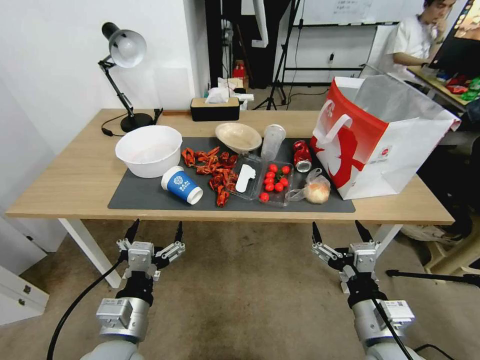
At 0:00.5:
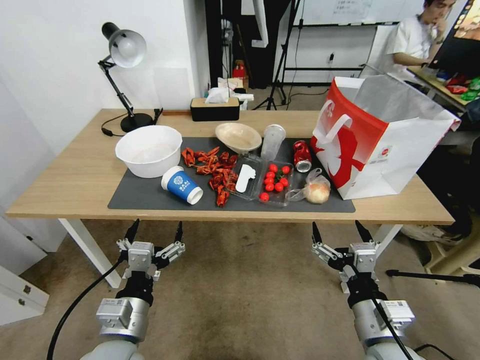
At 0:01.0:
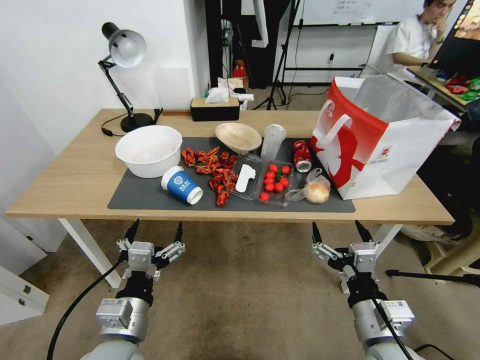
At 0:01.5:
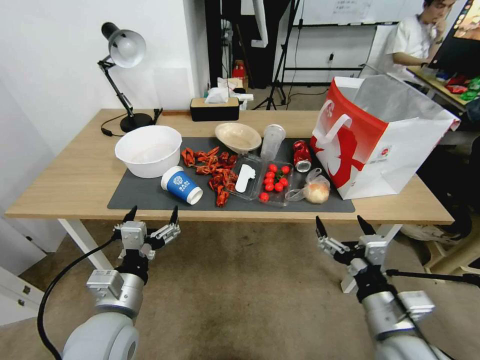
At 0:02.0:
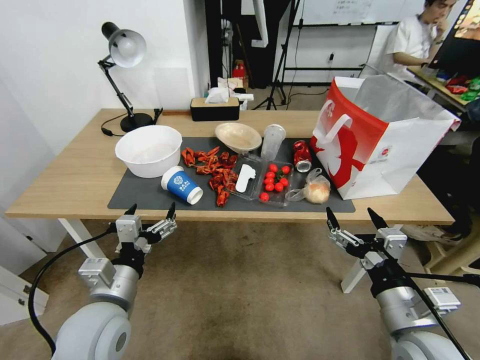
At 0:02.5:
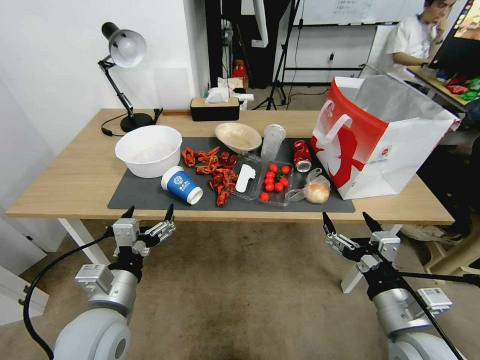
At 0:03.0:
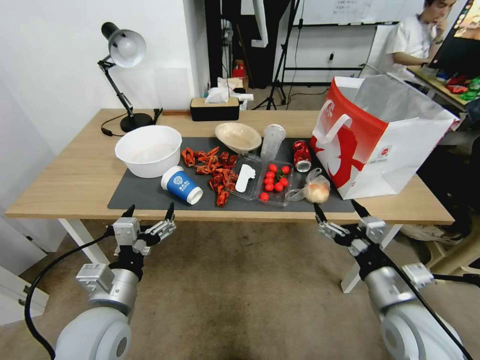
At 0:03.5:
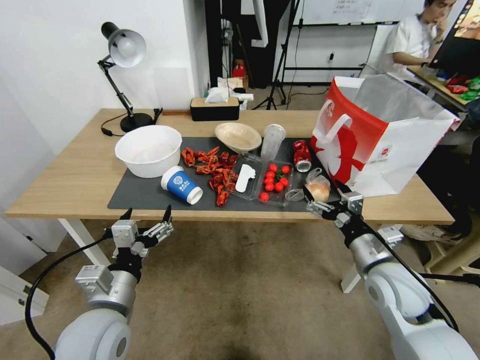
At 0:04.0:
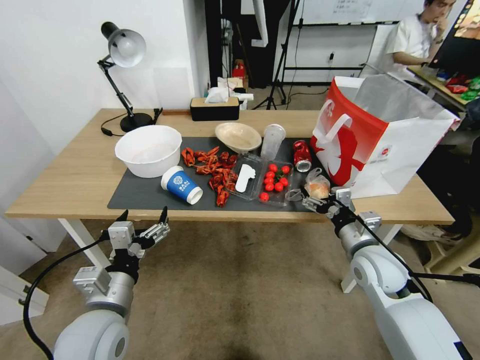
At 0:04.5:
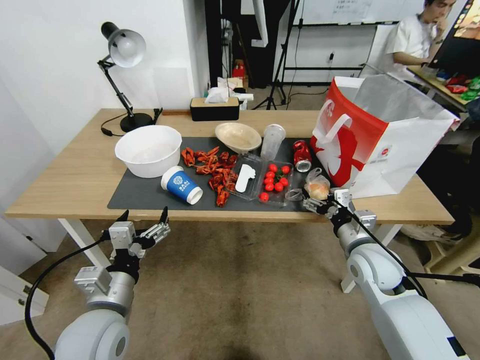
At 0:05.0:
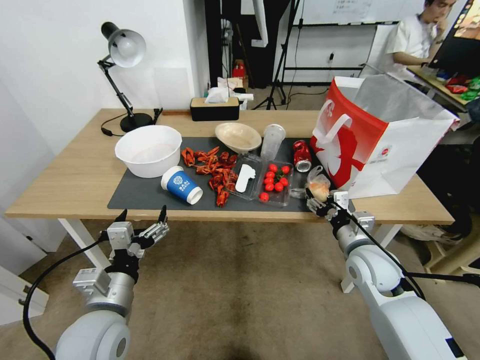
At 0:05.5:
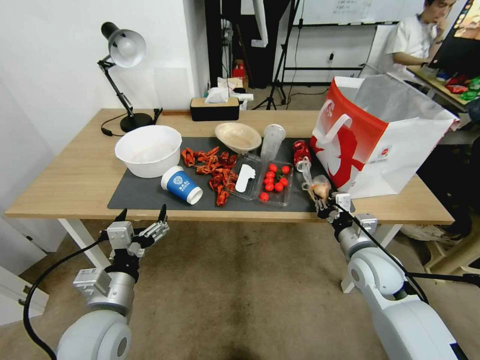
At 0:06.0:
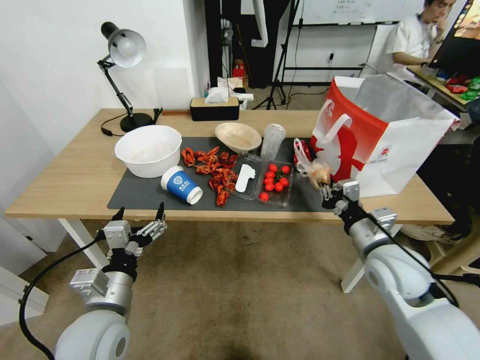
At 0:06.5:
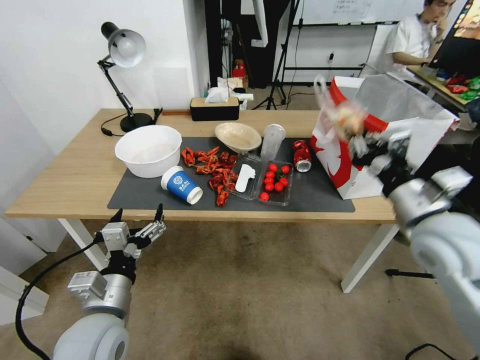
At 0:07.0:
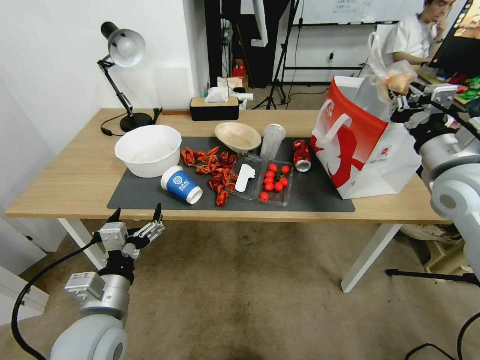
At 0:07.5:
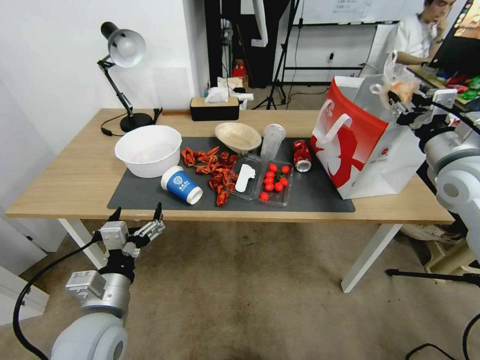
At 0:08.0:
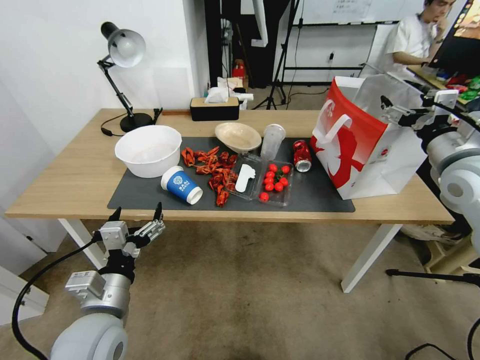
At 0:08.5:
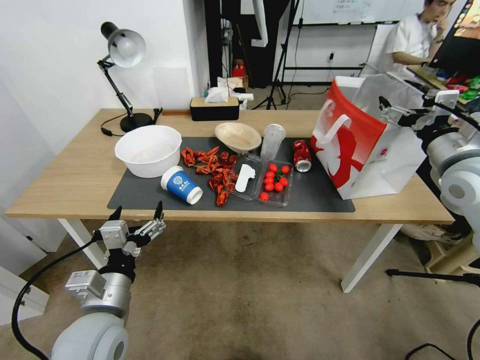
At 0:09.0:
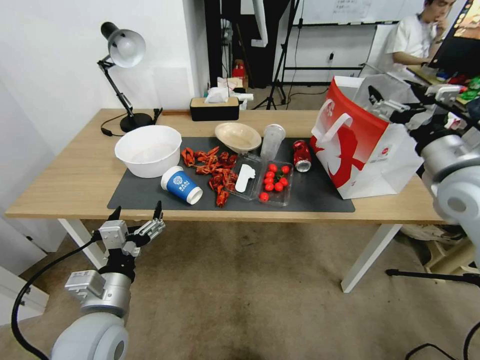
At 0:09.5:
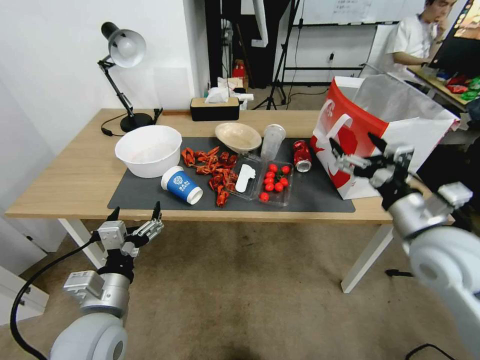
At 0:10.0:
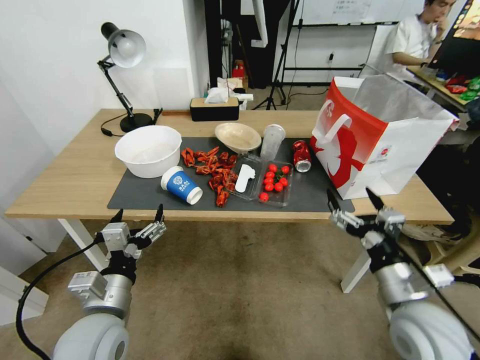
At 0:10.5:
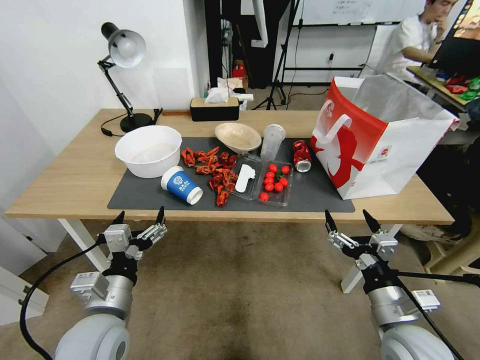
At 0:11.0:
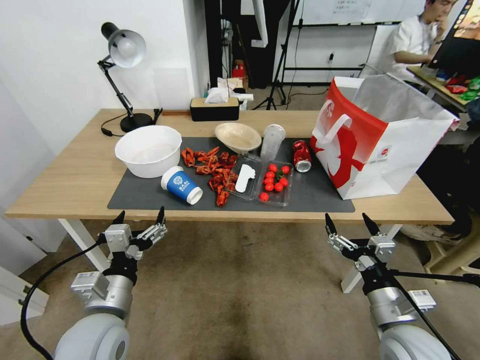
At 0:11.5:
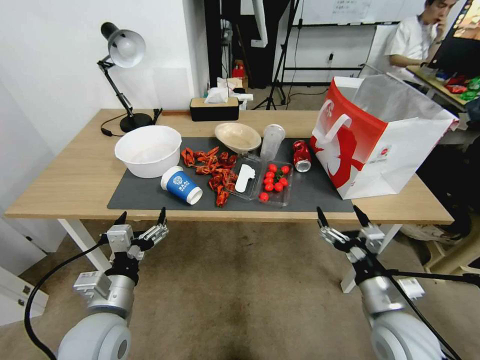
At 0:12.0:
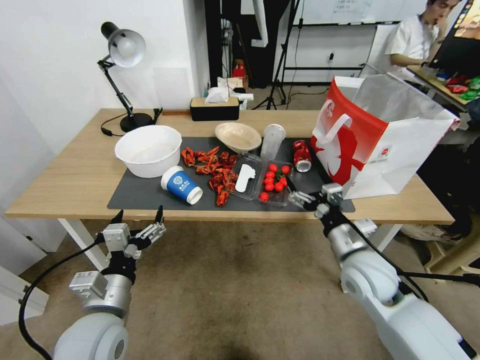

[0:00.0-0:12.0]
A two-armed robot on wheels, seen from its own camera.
0:02.0 to 0:04.0: The right gripper goes approximately 15 cm forward.
0:04.0 to 0:06.0: The right gripper closes its fingers.
0:06.0 to 0:08.0: The right gripper goes approximately 20 cm upward, to the right and forward, and opens.
0:08.0 to 0:10.0: The right gripper is displaced backward, downward and to the left by about 25 cm.
0:10.0 to 0:12.0: The right gripper moves forward, roughly 10 cm.

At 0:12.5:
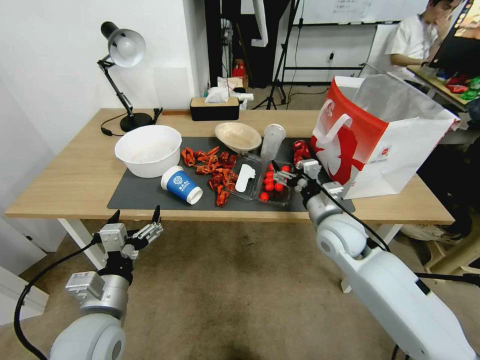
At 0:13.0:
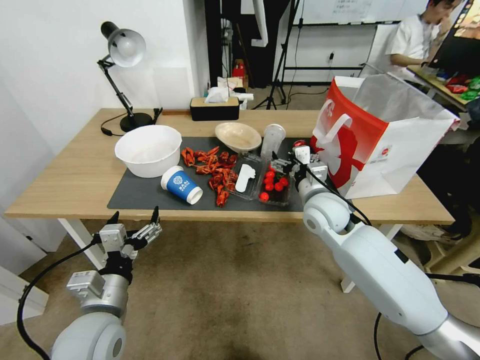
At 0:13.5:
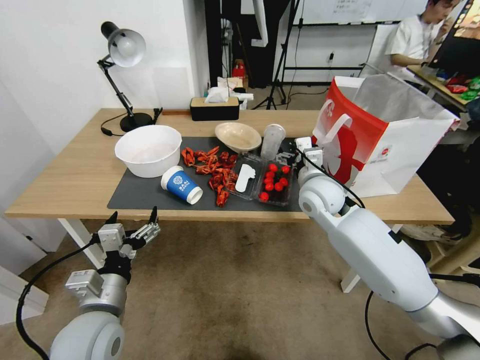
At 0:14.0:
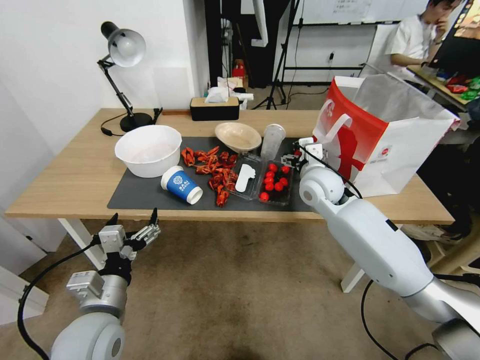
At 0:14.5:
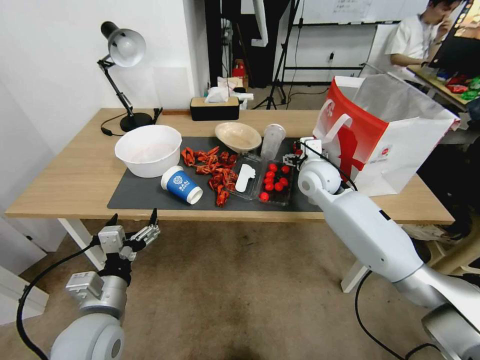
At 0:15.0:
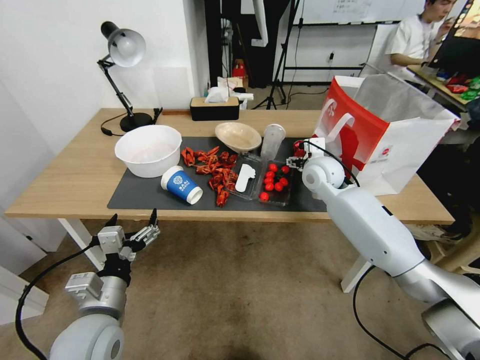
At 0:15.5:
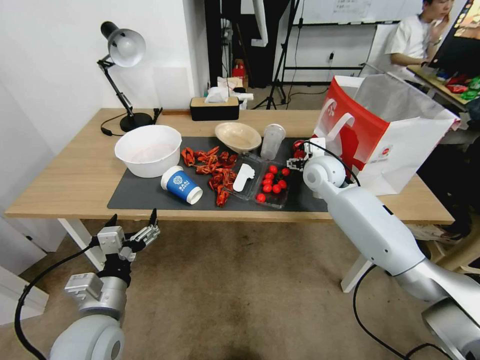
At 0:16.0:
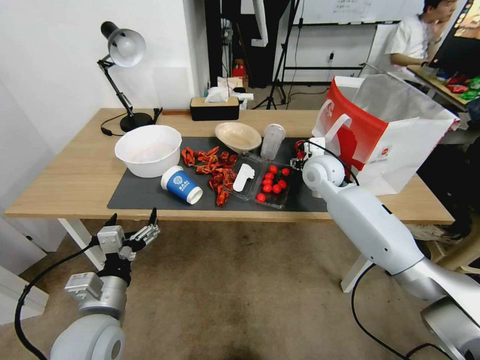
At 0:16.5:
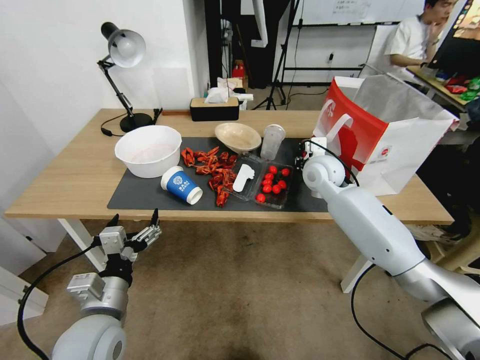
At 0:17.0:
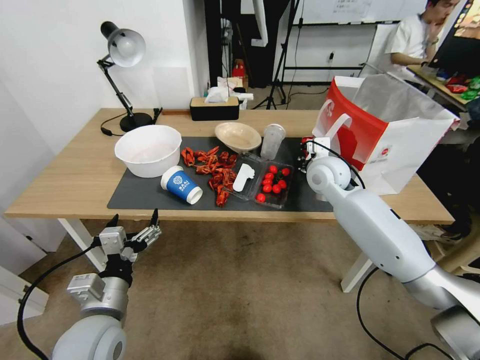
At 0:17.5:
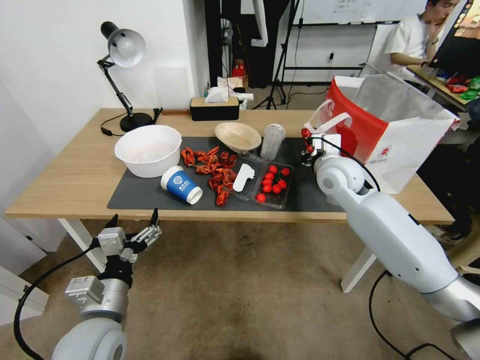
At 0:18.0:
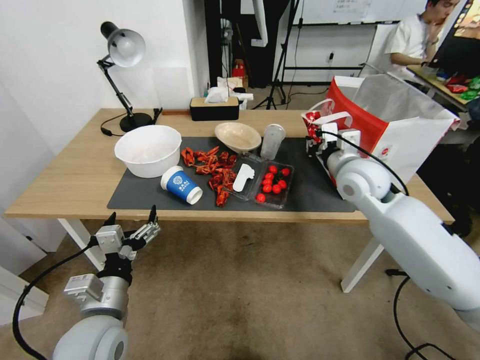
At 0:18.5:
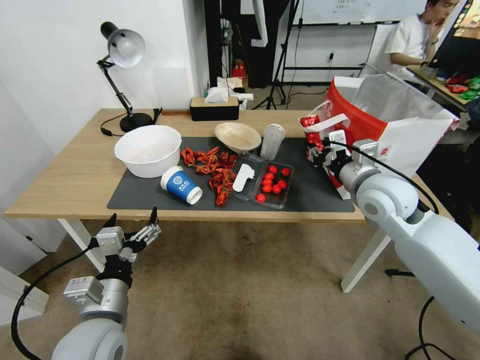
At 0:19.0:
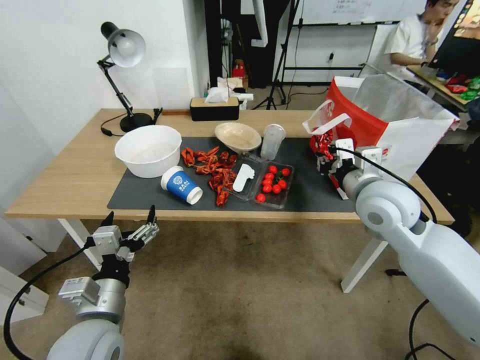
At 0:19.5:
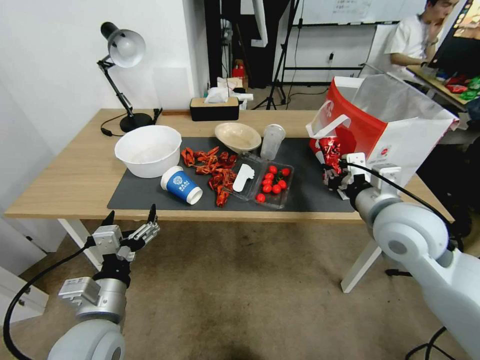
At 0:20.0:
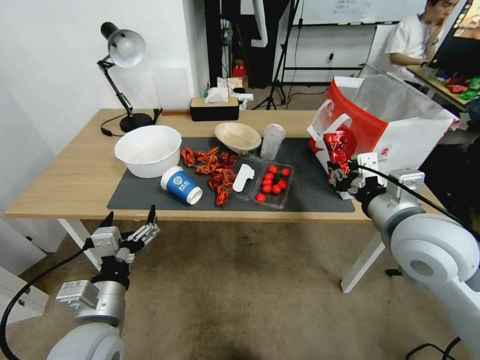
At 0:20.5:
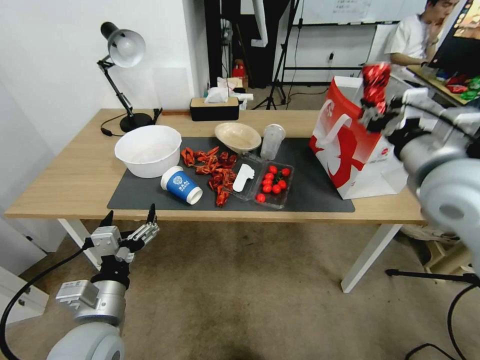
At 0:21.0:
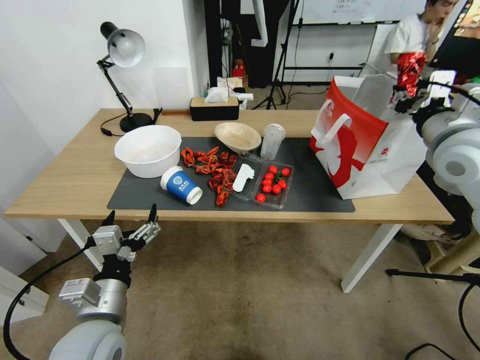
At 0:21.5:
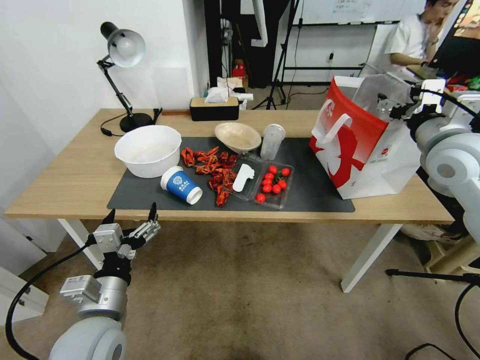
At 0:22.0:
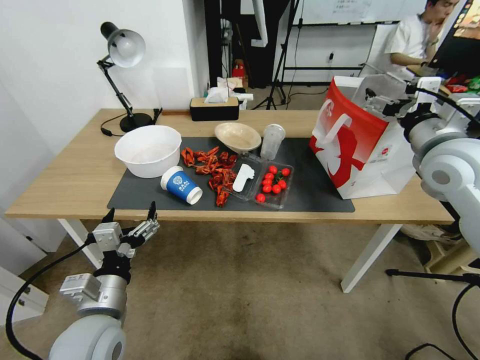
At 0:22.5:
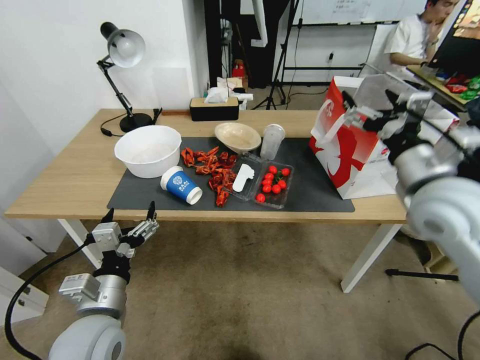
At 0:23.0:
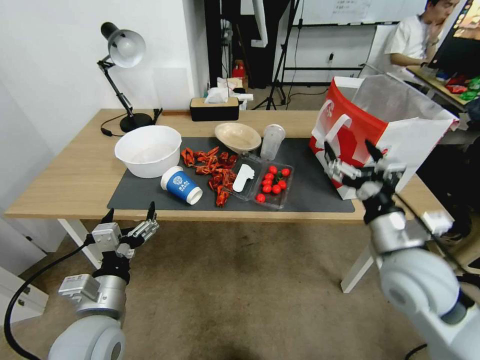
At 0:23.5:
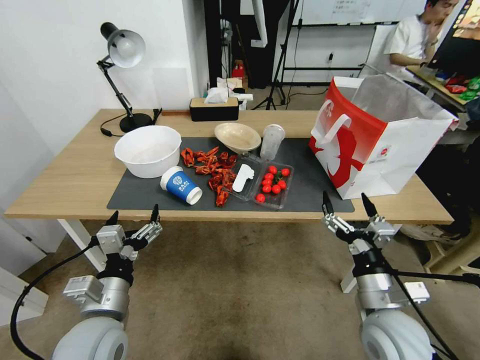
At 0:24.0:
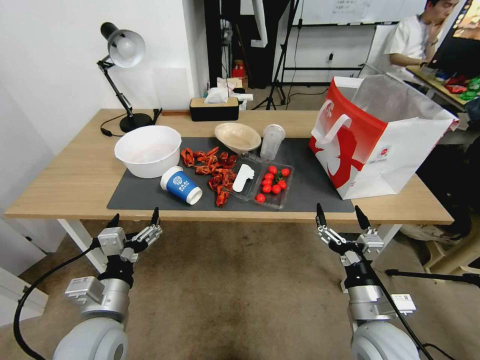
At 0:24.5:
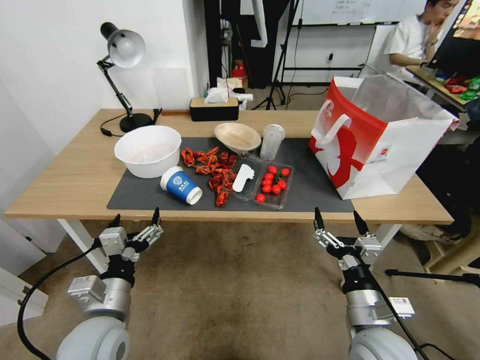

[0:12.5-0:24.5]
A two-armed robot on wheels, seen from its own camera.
0:12.5 to 0:14.5: The right gripper is displaced forward by about 15 cm.
0:14.5 to 0:16.5: The right gripper closes.
0:16.5 to 0:18.5: The right gripper moves backward, to the right and upward, some 15 cm.
0:18.5 to 0:20.5: The right gripper moves upward and backward, approximately 10 cm.
0:20.5 to 0:22.5: The right gripper travels forward and back again, some 10 cm each way, and opens.
0:22.5 to 0:24.5: The right gripper heads downward and backward, covering some 25 cm.

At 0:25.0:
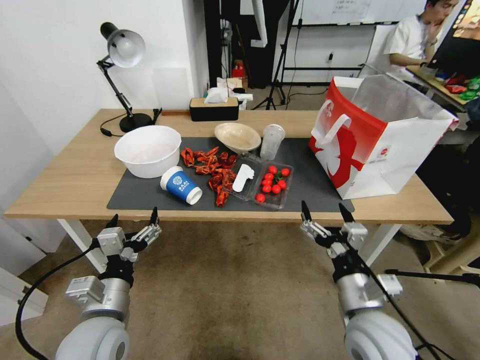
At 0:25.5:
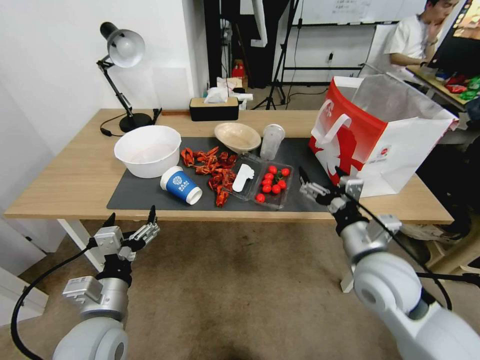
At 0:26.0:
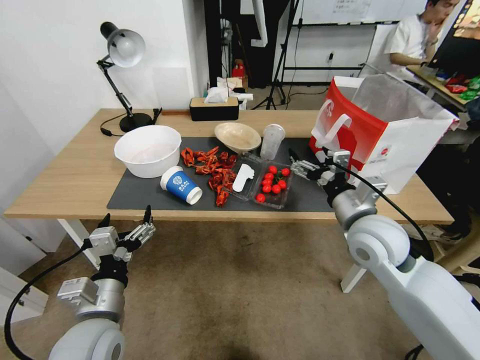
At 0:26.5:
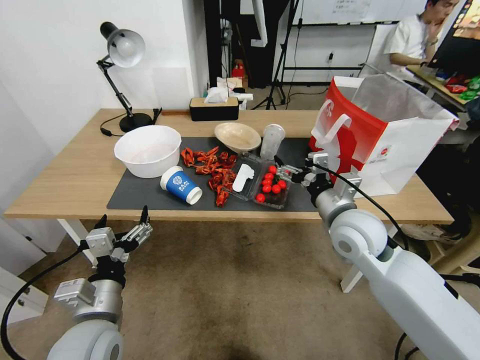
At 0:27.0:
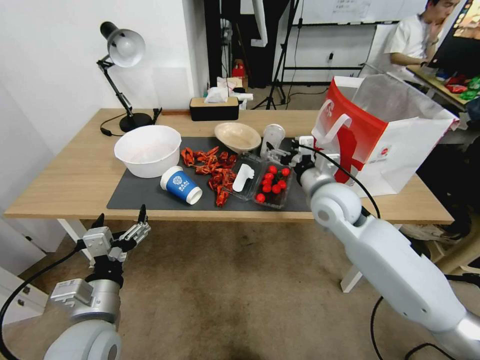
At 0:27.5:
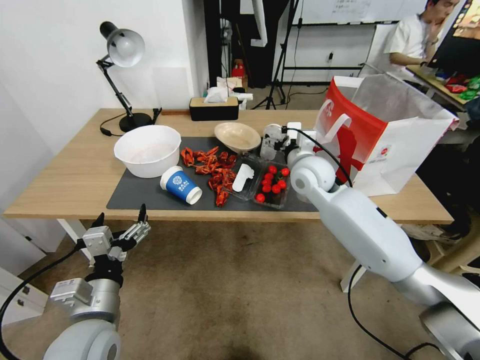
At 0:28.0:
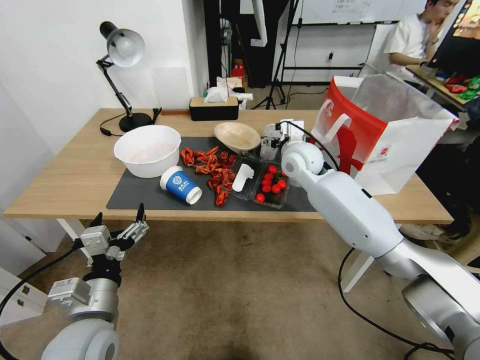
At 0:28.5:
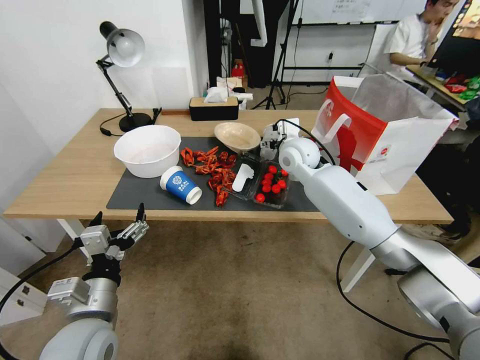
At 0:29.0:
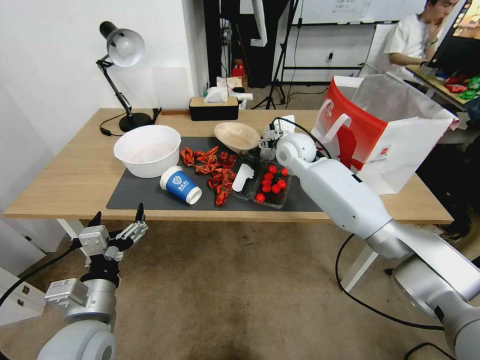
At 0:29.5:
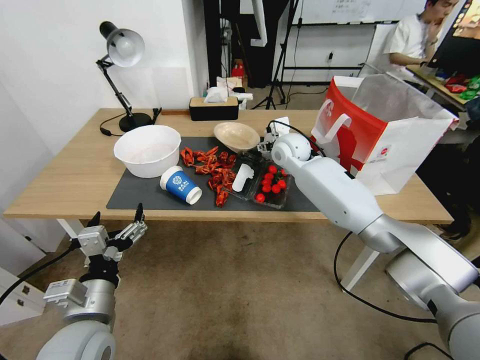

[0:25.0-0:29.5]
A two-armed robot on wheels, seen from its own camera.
0:25.0 to 0:27.0: The right gripper goes about 20 cm forward.
0:27.0 to 0:29.5: The right gripper moves forward, about 15 cm.
